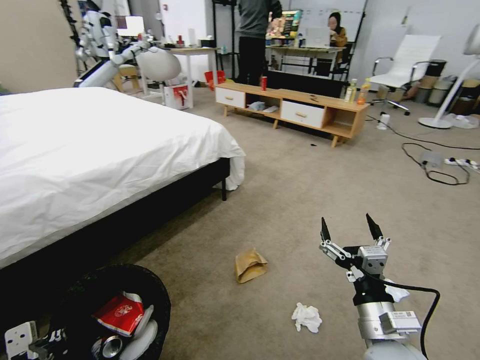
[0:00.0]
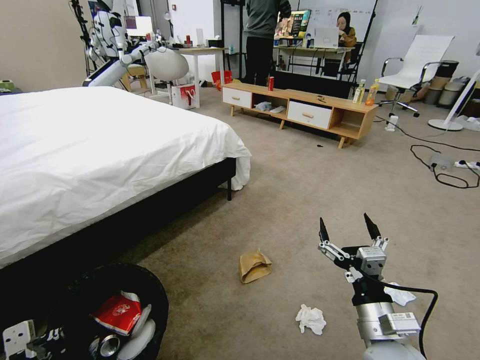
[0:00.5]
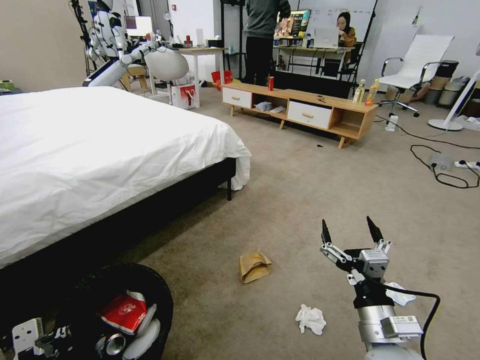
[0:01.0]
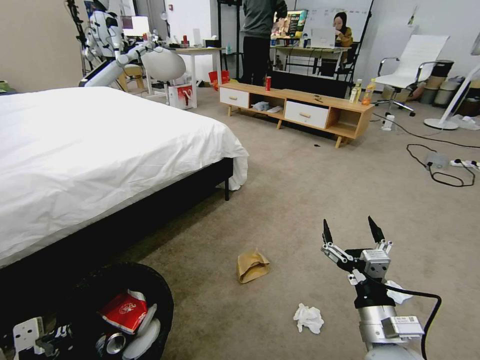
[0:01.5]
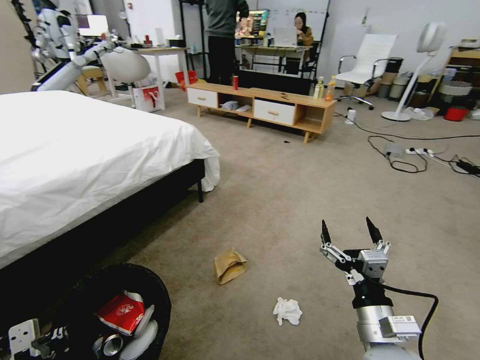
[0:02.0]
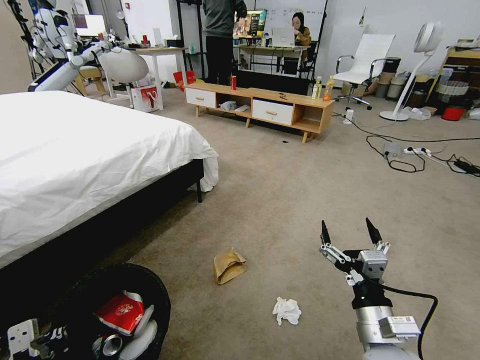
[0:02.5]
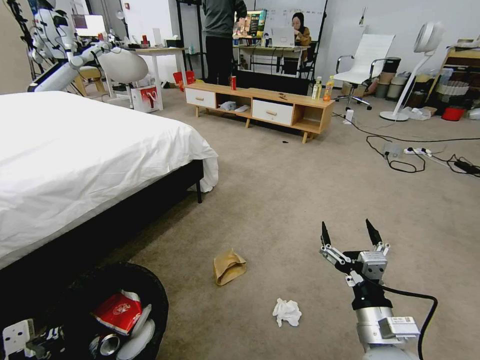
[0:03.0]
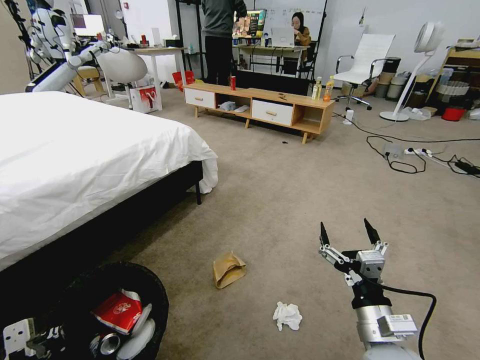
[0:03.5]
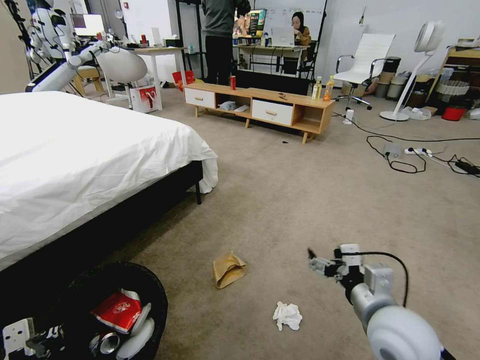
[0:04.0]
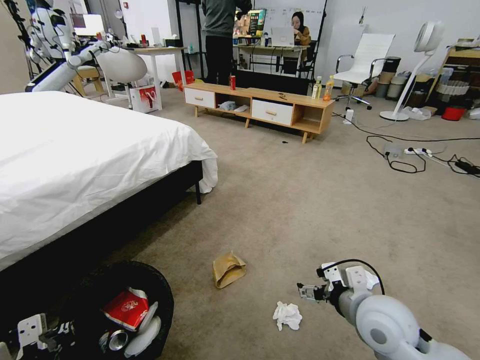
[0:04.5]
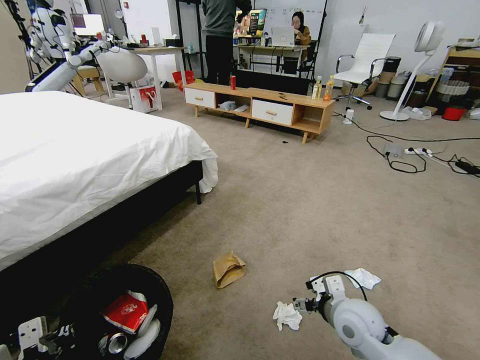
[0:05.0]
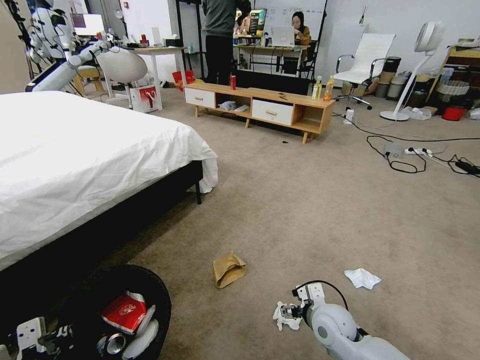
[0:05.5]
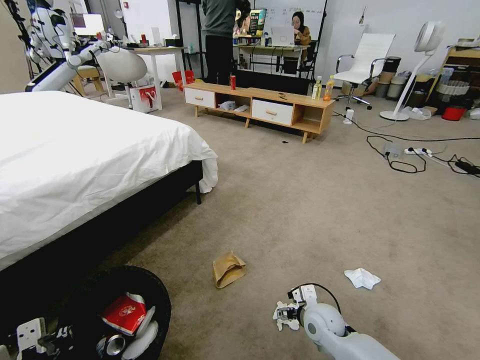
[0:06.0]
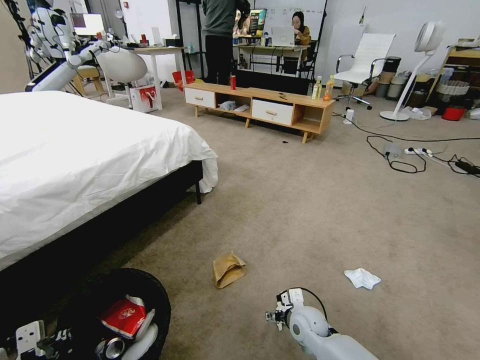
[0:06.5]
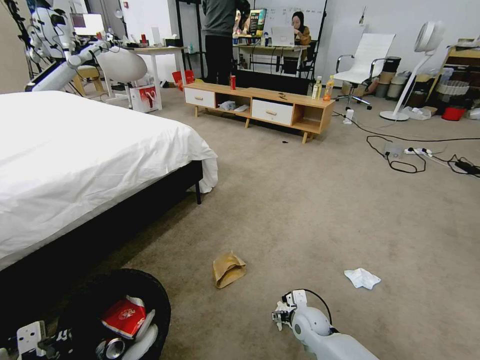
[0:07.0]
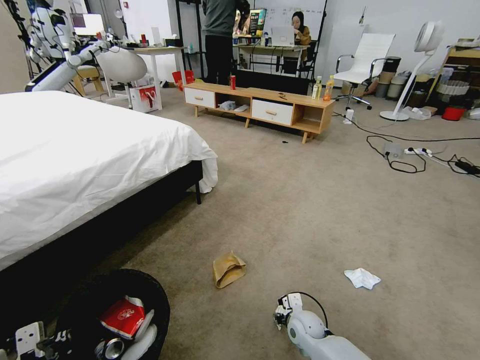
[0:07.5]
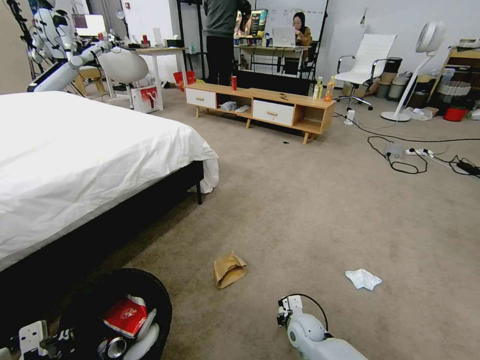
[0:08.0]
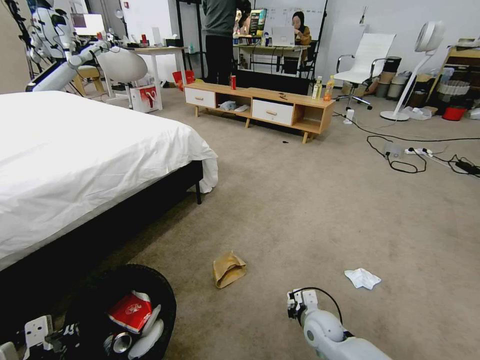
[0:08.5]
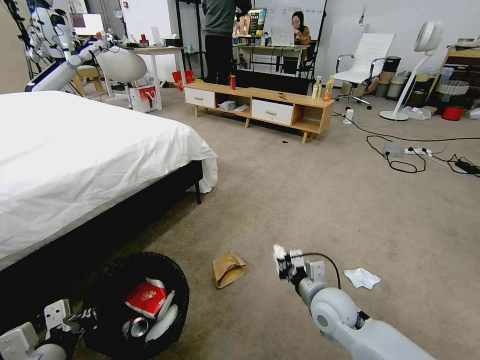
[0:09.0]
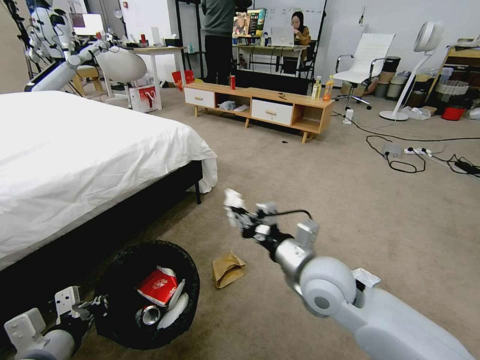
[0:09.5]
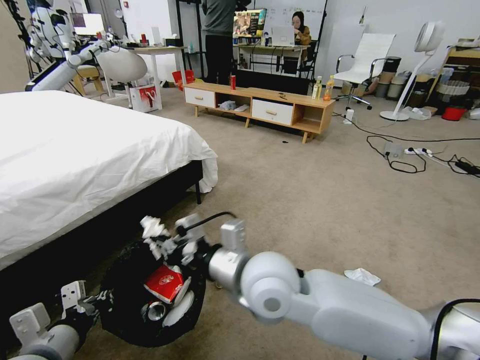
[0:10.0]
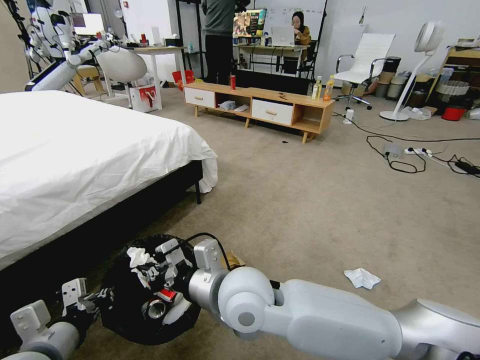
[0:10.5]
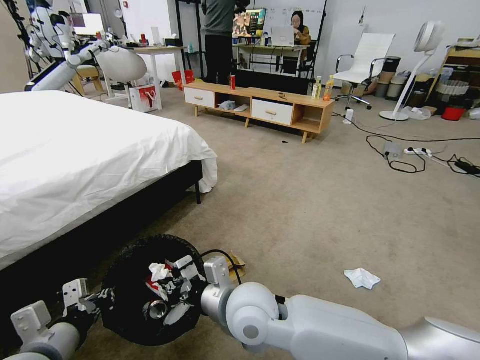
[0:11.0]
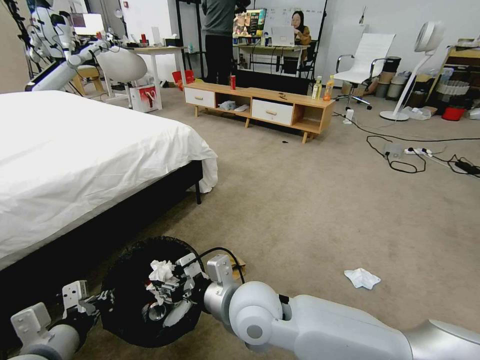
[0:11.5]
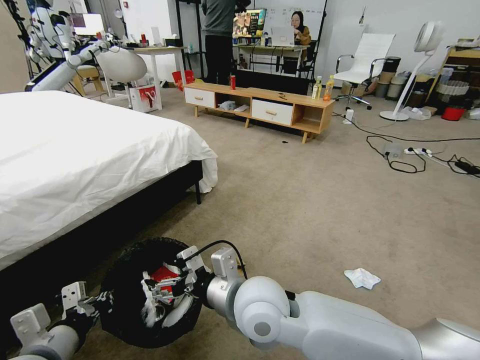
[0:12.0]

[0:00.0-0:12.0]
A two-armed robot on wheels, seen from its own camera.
Task of the whole recording: Pick up the trash bin and place the garbage on the floor into it.
0:04.0 to 0:06.0: The right gripper heads downward and forward, covering roughly 20 cm.
0:06.0 to 0:08.0: The right gripper goes approximately 10 cm downward, and closes.
0:08.0 to 0:10.0: The left gripper shifts roughly 5 cm forward. The right gripper heads upward, covering approximately 35 cm.
0:10.0 to 0:12.0: The right gripper opens up.

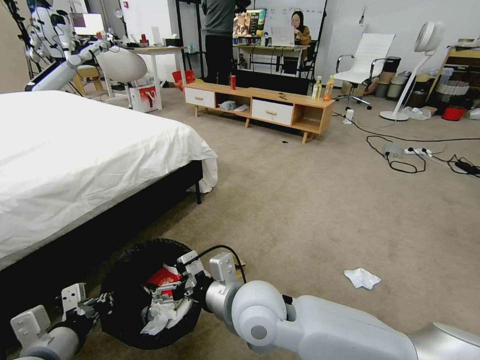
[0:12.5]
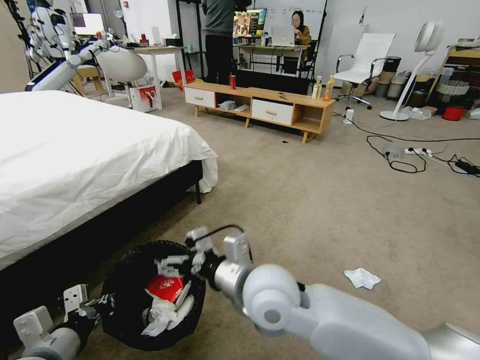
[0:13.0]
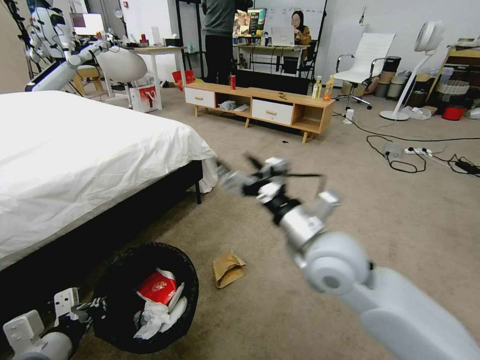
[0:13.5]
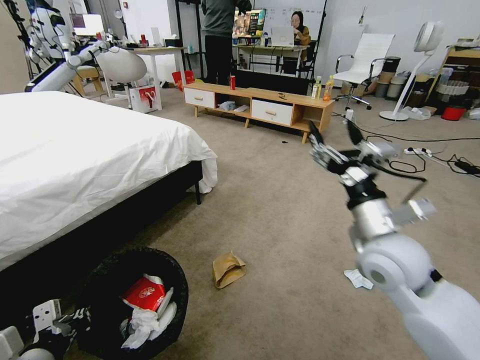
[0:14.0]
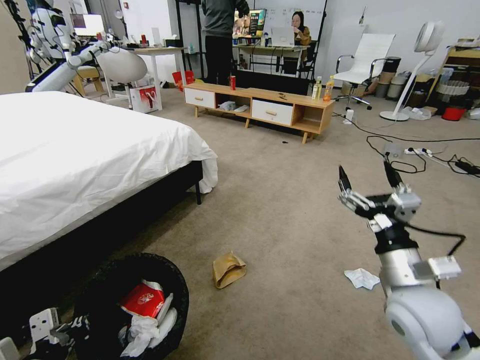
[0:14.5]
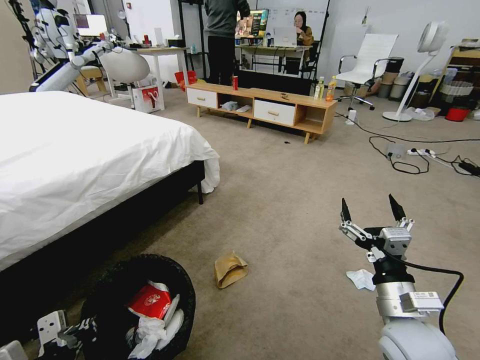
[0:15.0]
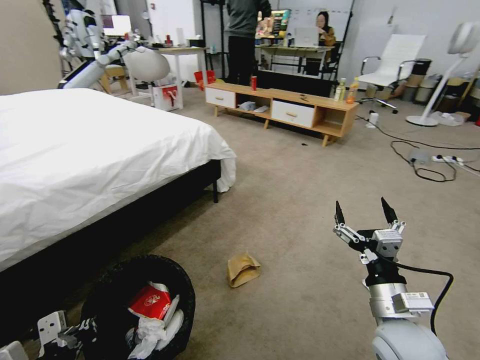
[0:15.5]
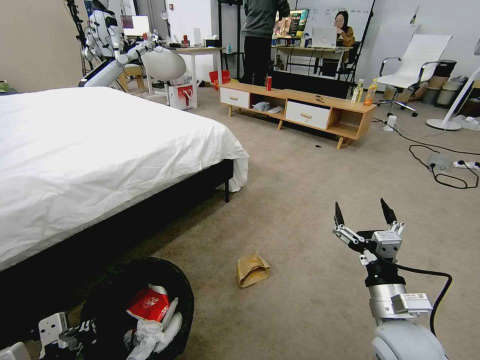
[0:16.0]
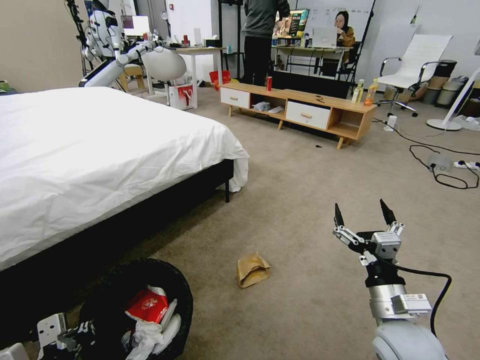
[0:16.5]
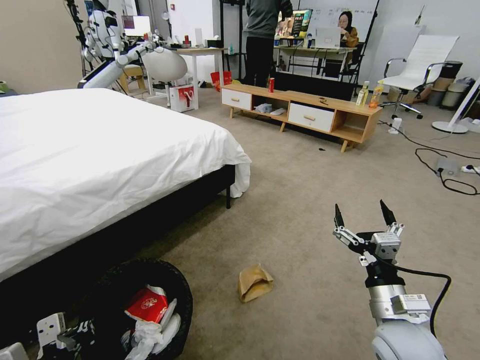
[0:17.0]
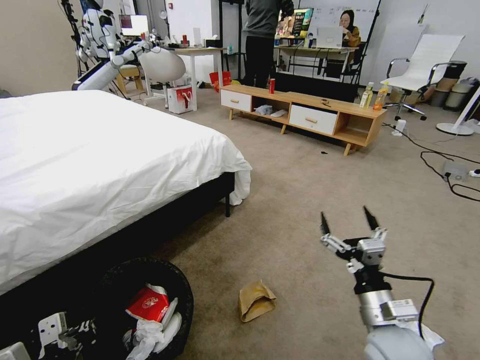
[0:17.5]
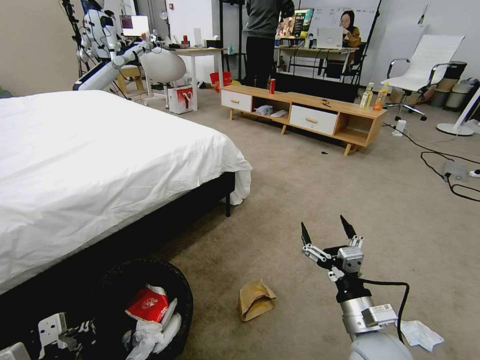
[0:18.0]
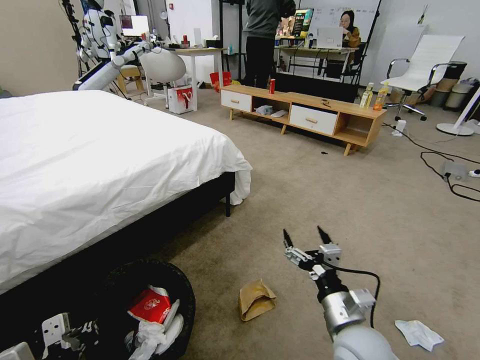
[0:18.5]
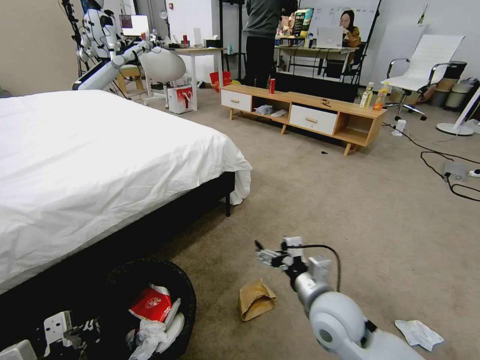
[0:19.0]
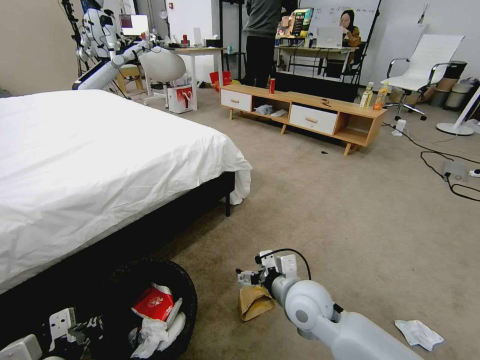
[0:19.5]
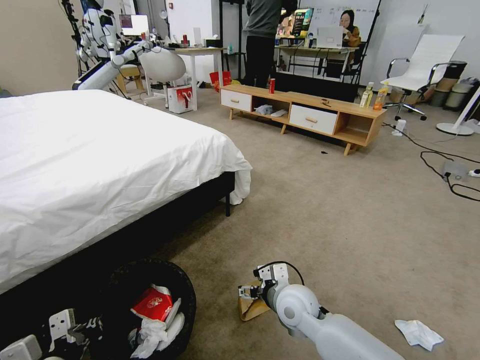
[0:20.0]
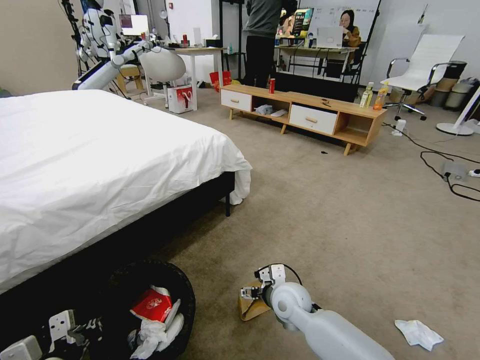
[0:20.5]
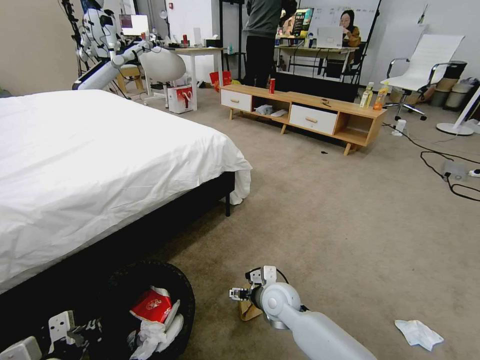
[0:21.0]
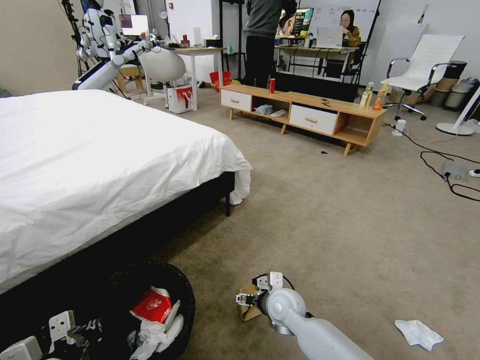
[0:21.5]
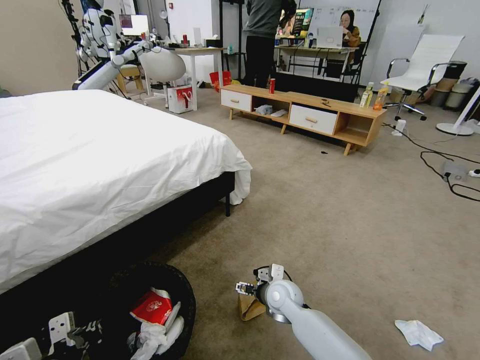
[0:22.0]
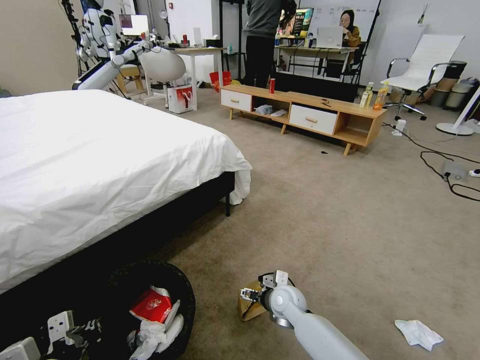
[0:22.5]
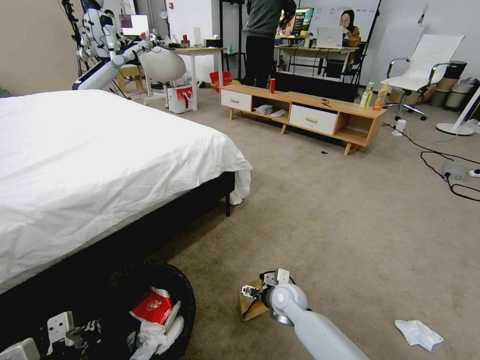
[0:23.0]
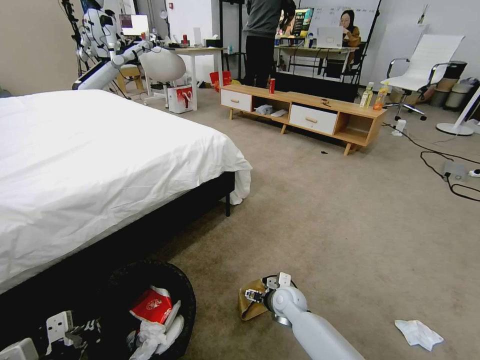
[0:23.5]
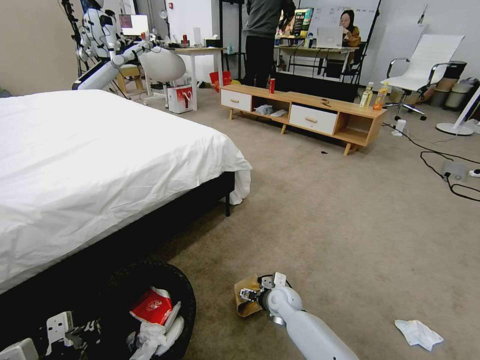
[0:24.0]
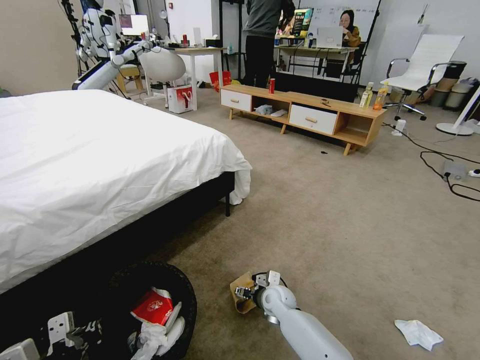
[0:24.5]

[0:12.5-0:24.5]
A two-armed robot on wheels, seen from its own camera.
Task of the whole recording: Pick up the trash bin and place the garbage on the floor into it.
0:12.5 to 0:14.5: The right gripper travels to the right by roughly 25 cm.
0:14.5 to 0:16.5: The right gripper shifts approximately 5 cm downward.
0:16.5 to 0:18.5: The right gripper heads to the left, covering about 5 cm.
0:18.5 to 0:20.5: The right gripper goes roughly 20 cm forward, to the left and downward.
0:20.5 to 0:22.5: The right gripper shifts approximately 5 cm downward.
0:22.5 to 0:24.5: The grippers make only small movements.

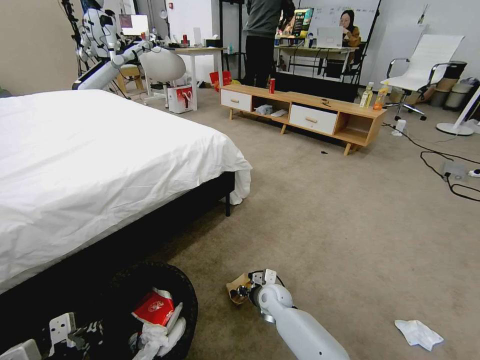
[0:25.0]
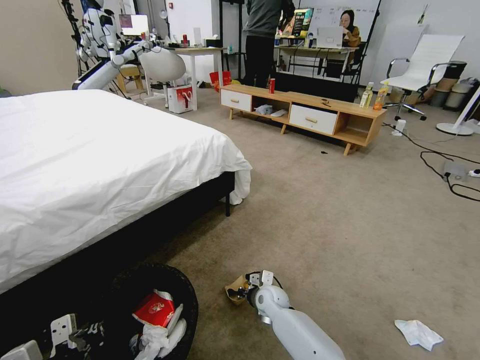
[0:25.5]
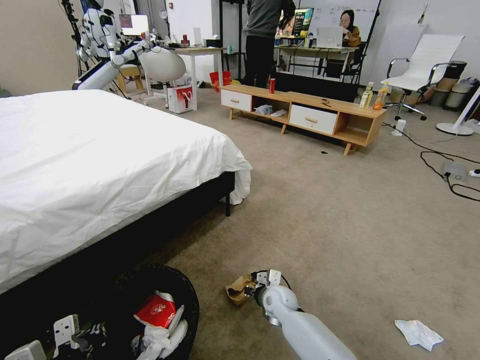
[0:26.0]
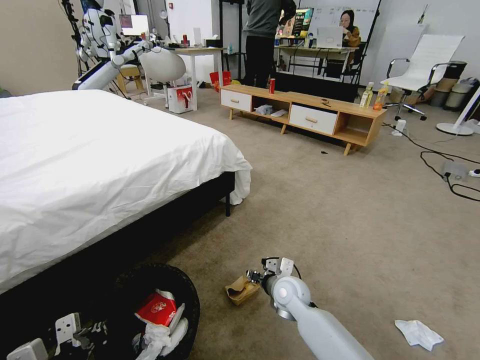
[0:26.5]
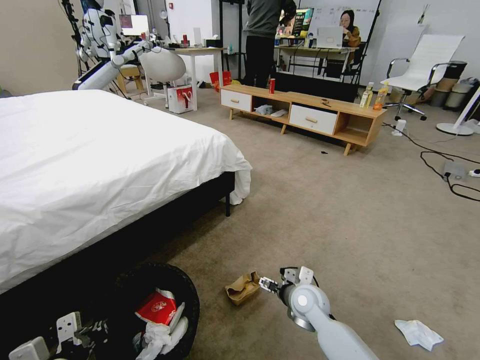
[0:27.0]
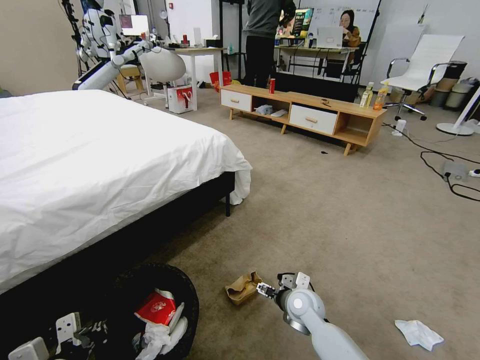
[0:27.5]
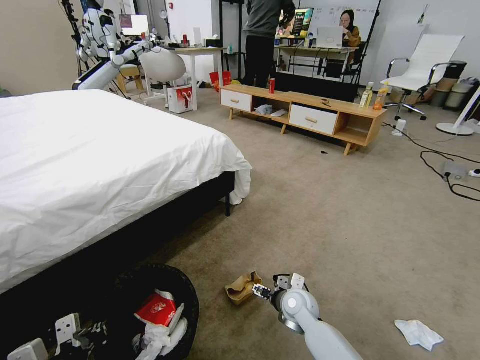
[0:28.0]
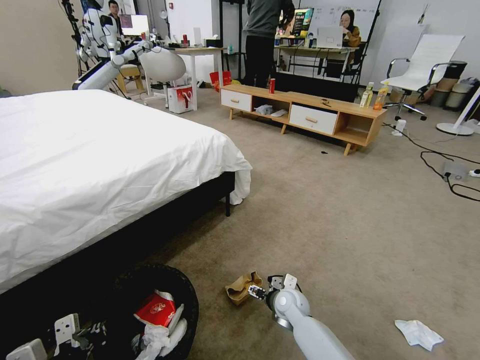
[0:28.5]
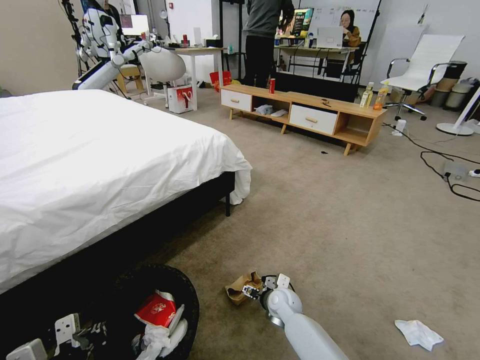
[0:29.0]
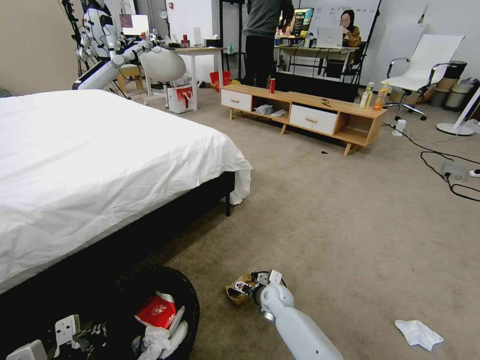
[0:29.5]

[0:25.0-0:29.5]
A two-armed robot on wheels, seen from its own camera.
Task of the whole recording: Pick up the trash bin and place the garbage on the floor into it.
0:25.0 to 0:27.0: The right gripper heads upward and to the right, covering roughly 10 cm, and opens its fingers.
0:27.0 to 0:29.5: The right gripper heads downward, to the left and forward, covering roughly 15 cm.
